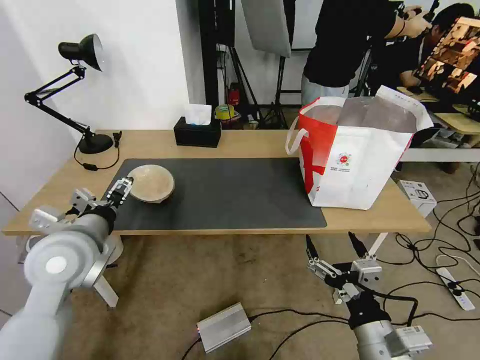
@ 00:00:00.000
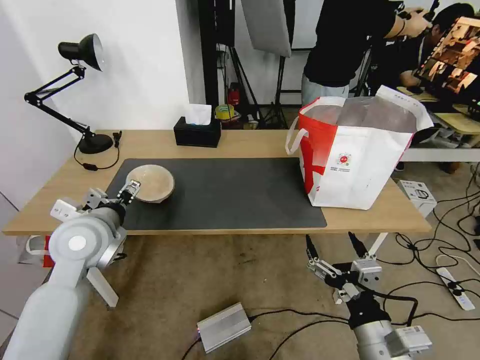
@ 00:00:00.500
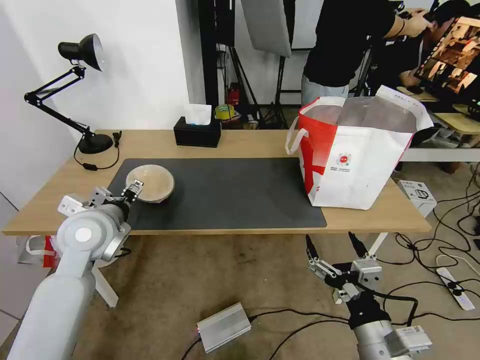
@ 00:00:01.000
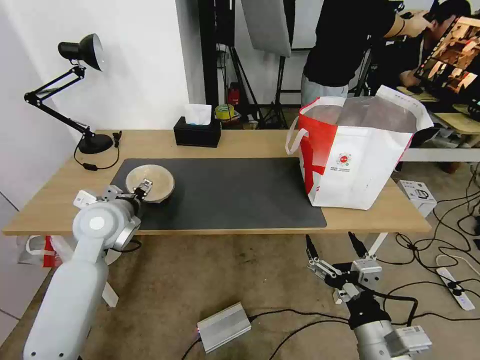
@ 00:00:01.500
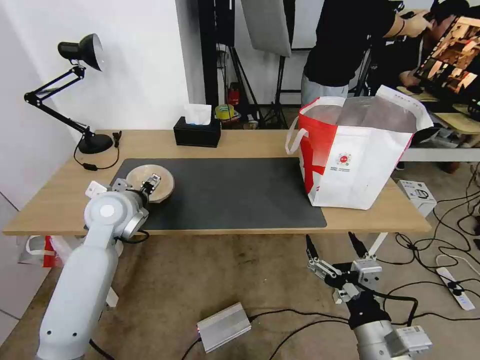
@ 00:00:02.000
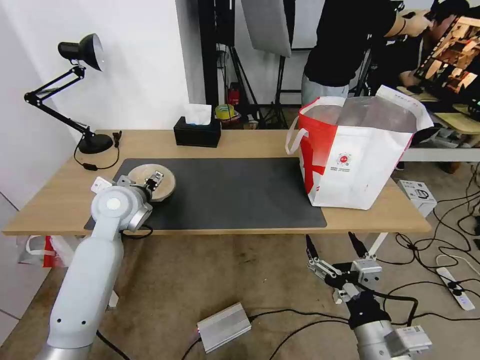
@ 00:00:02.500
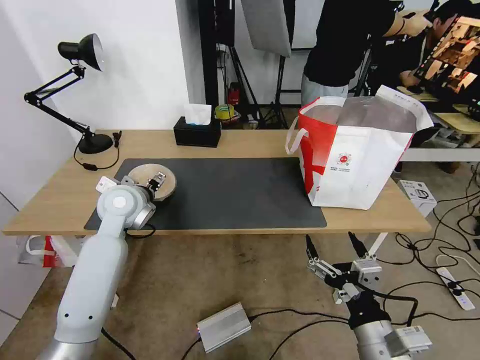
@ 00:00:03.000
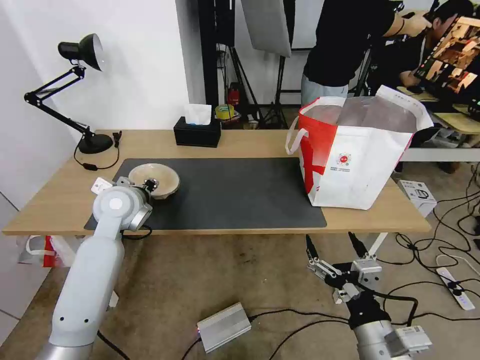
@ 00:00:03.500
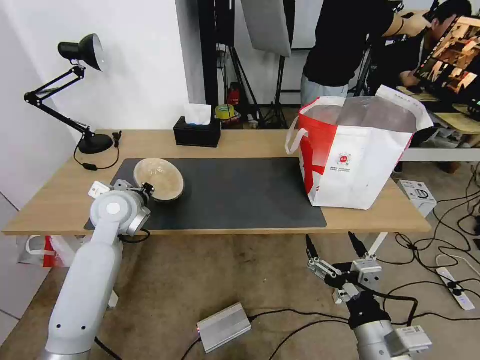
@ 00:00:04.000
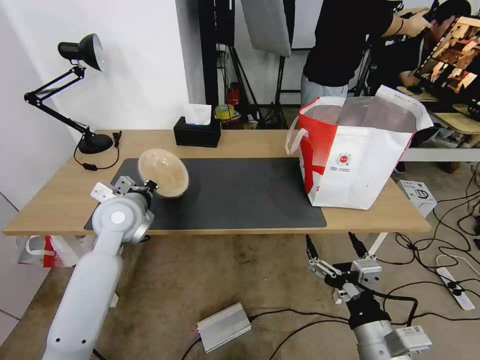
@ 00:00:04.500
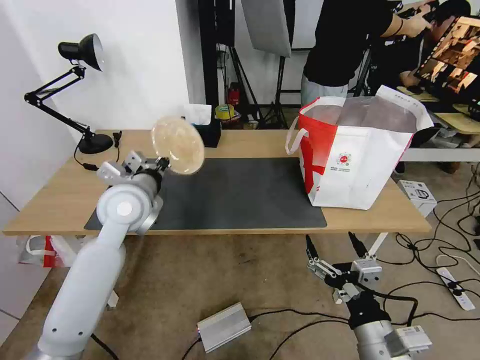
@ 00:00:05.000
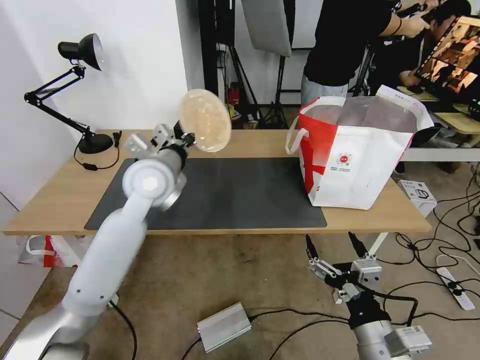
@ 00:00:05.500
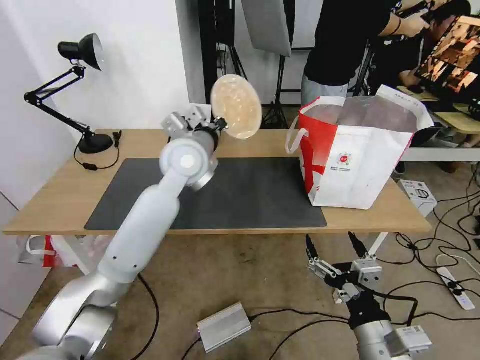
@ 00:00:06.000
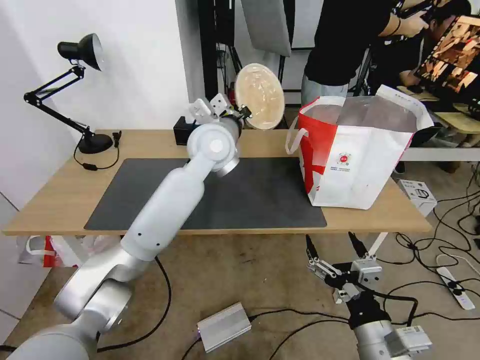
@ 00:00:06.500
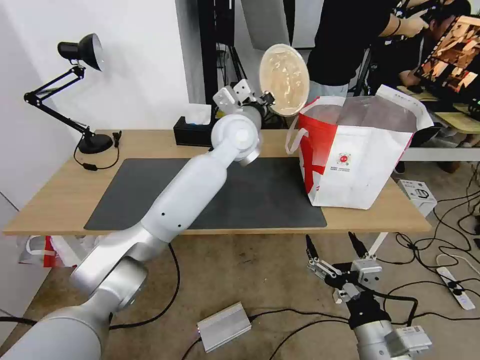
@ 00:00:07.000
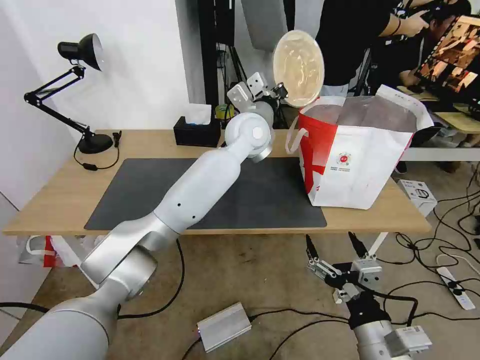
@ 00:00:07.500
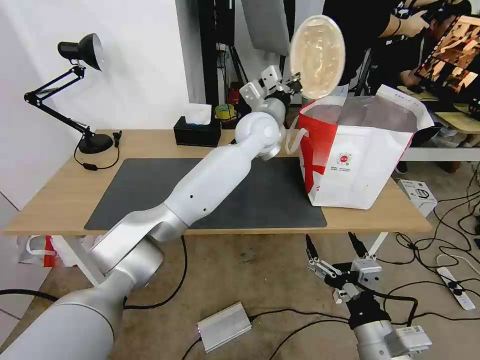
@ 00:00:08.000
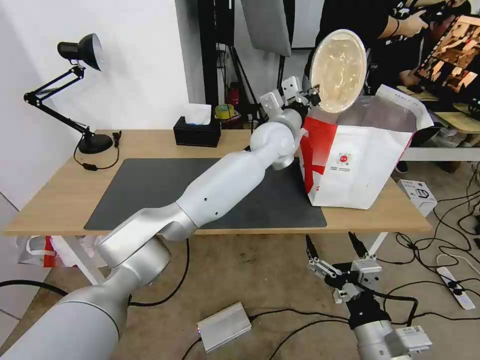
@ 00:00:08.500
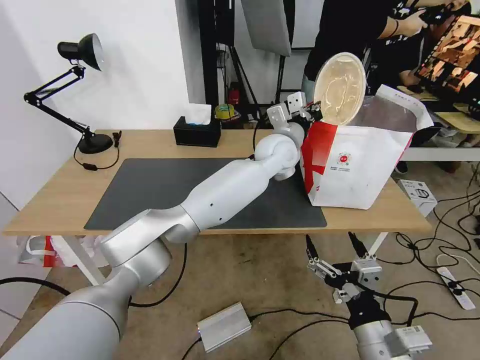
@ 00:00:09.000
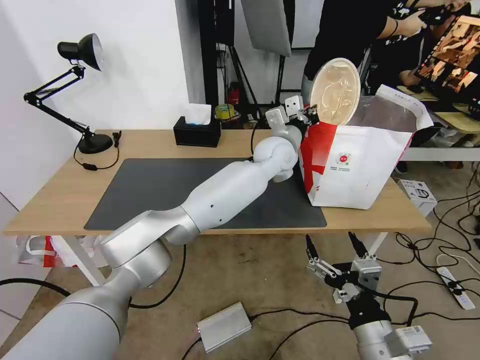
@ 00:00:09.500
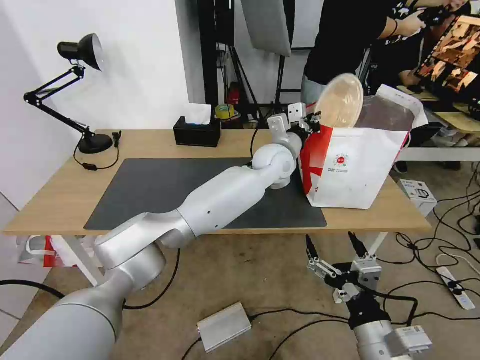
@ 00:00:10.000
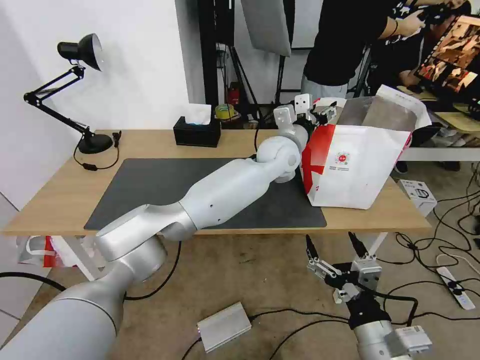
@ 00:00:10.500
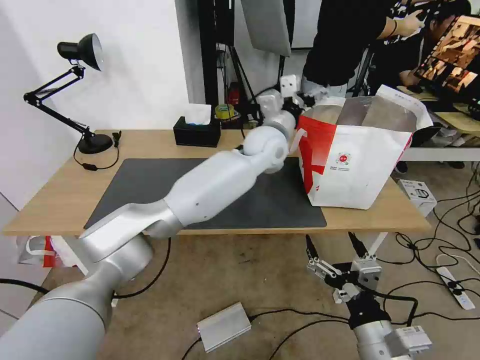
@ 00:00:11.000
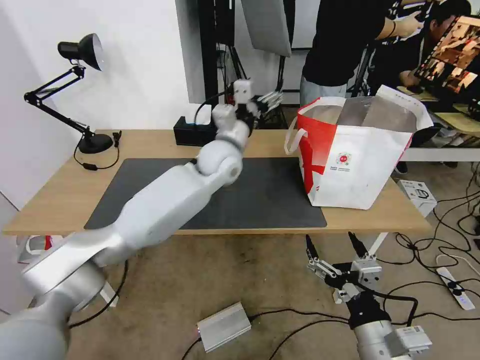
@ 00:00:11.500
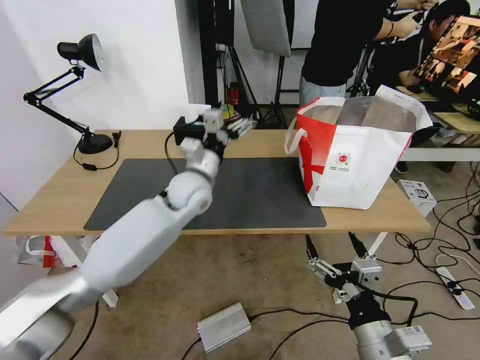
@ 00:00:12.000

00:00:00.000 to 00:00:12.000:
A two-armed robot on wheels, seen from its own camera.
Task of the whole recording: Pick up the trash from the table and place it into the takeout bag.
00:00:00.000 to 00:00:02.000: The left gripper travels forward by approximately 10 cm.
00:00:02.000 to 00:00:04.000: The left gripper closes up.
00:00:04.000 to 00:00:06.000: The left gripper moves to the right and upward, roughly 20 cm.
00:00:06.000 to 00:00:08.000: The left gripper is displaced to the right and forward by roughly 15 cm.
00:00:08.000 to 00:00:10.000: The left gripper heads downward, covering some 5 cm.
00:00:10.000 to 00:00:12.000: The left gripper goes about 20 cm to the left, and opens its fingers.

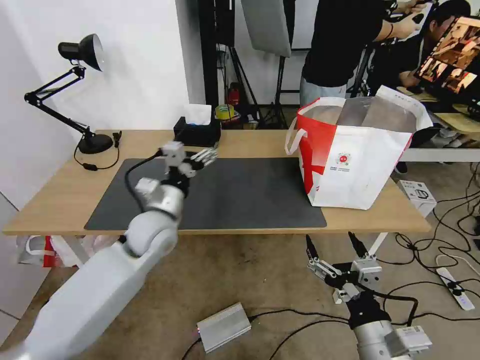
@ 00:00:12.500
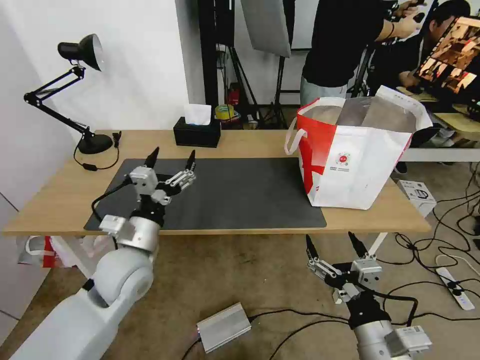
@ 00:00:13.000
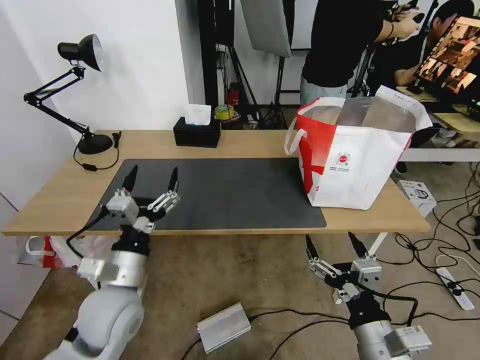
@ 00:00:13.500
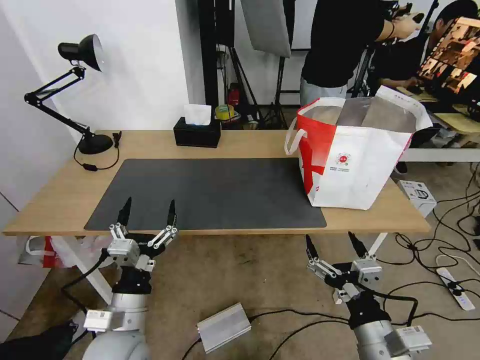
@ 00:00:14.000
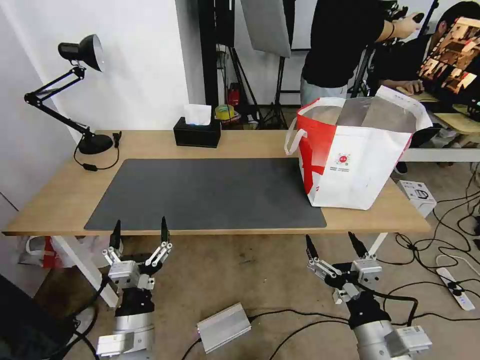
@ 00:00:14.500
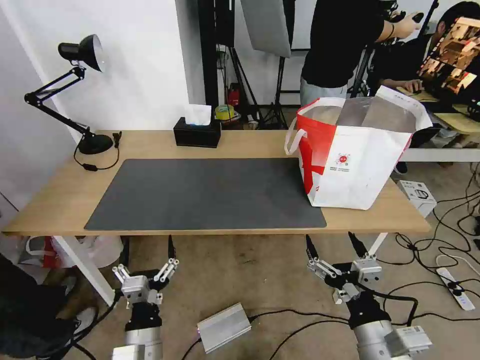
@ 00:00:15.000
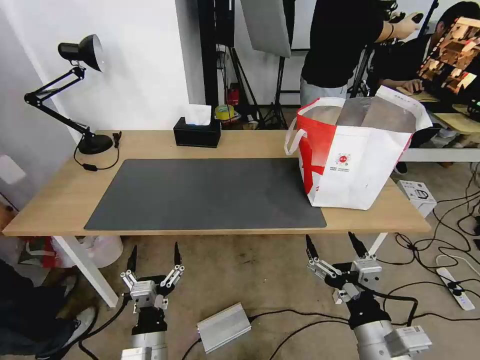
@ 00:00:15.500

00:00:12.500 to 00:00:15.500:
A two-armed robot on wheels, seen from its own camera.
Task of the whole recording: Pick up the trash from the table and place it into the takeout bag.
00:00:12.500 to 00:00:14.000: The left gripper heads backward, covering about 20 cm.
00:00:14.000 to 00:00:15.500: The left gripper shifts roughly 10 cm downward.

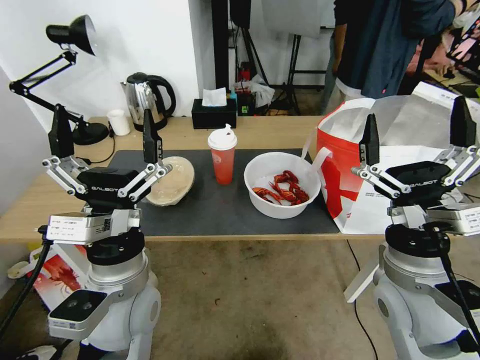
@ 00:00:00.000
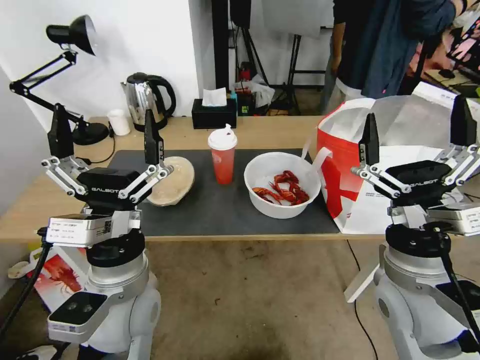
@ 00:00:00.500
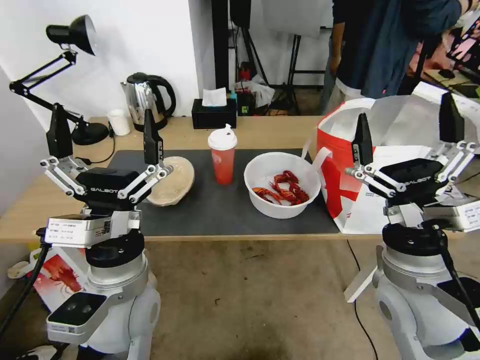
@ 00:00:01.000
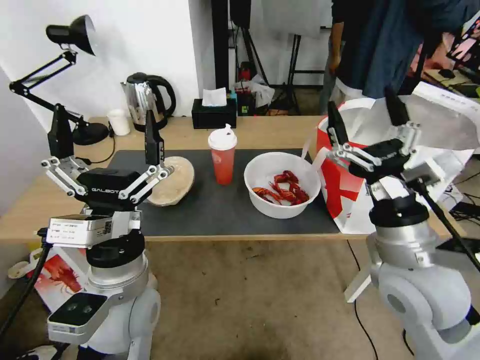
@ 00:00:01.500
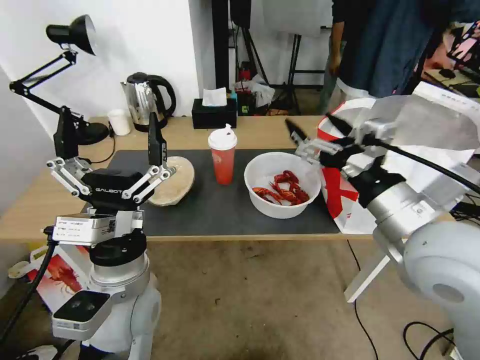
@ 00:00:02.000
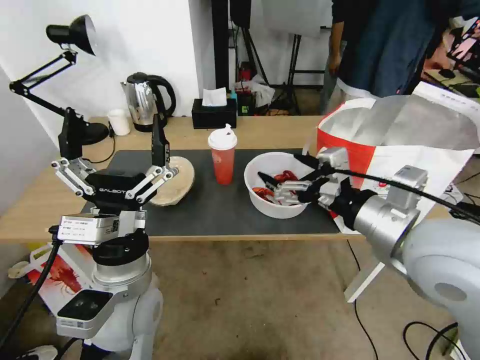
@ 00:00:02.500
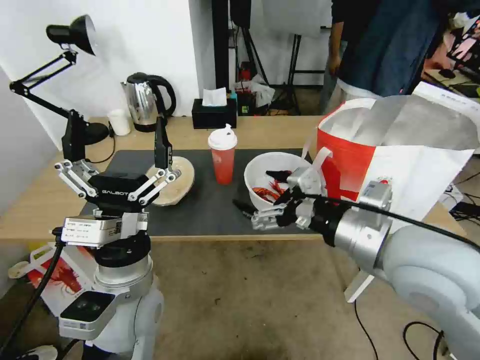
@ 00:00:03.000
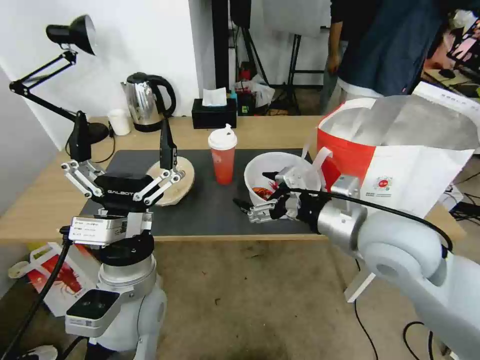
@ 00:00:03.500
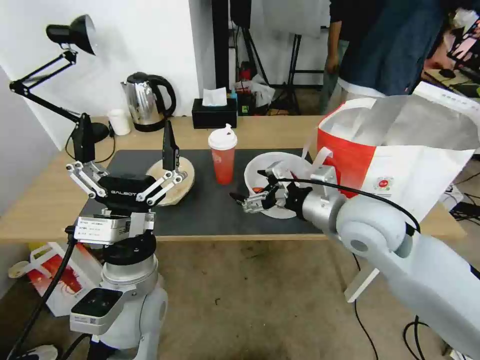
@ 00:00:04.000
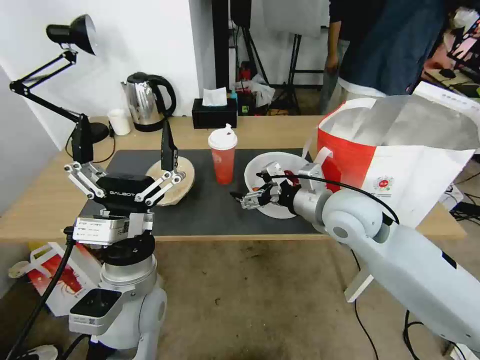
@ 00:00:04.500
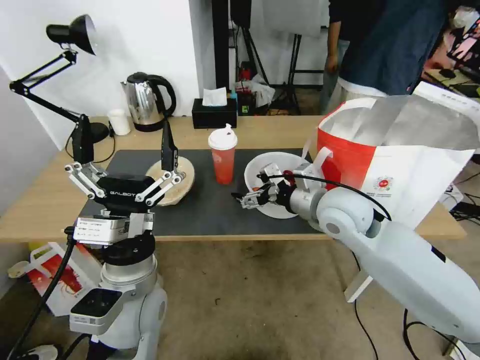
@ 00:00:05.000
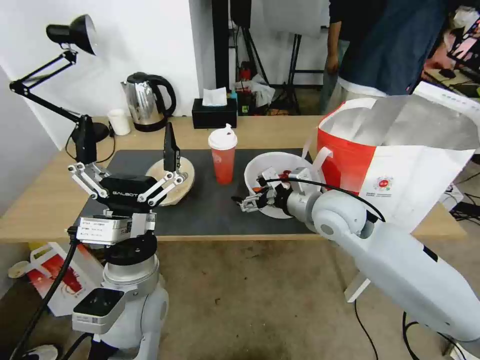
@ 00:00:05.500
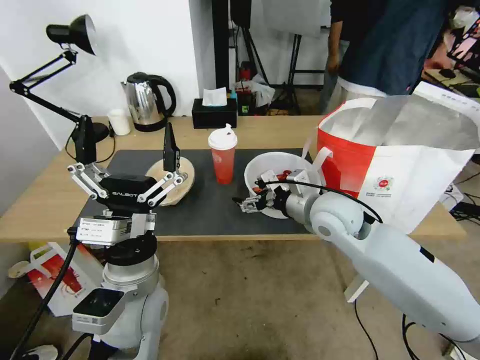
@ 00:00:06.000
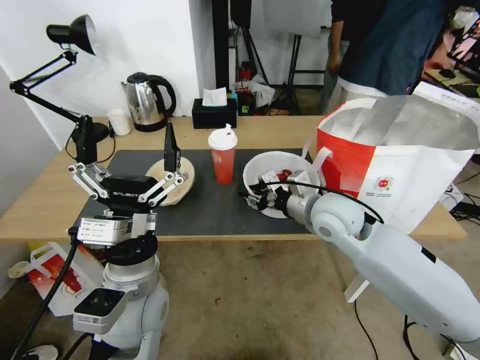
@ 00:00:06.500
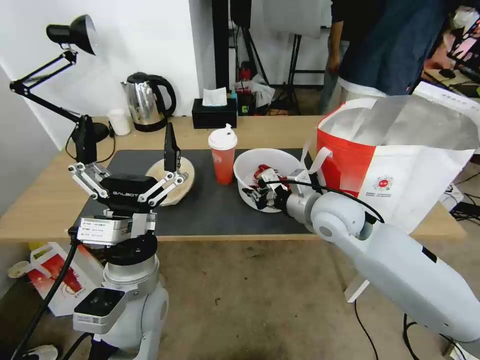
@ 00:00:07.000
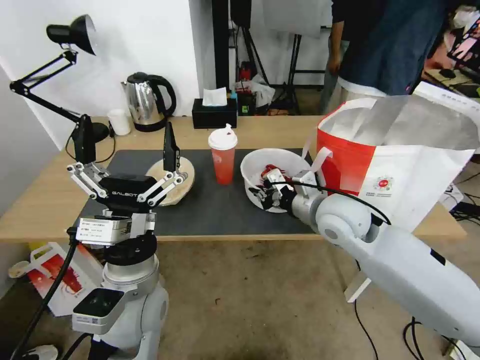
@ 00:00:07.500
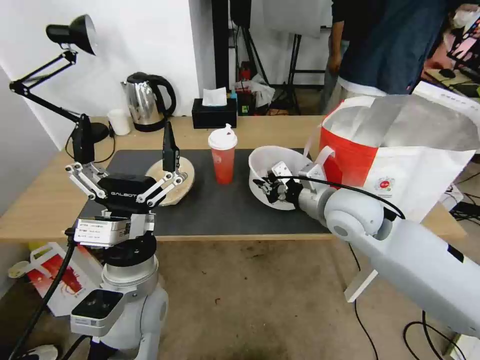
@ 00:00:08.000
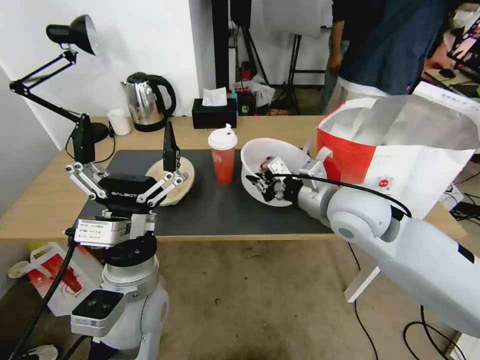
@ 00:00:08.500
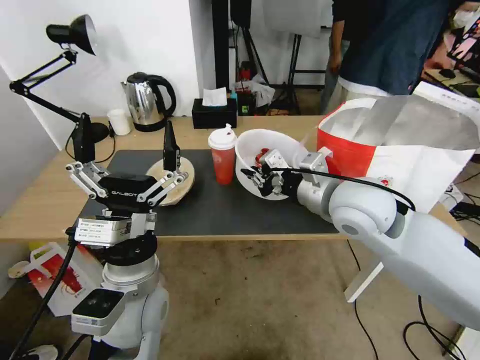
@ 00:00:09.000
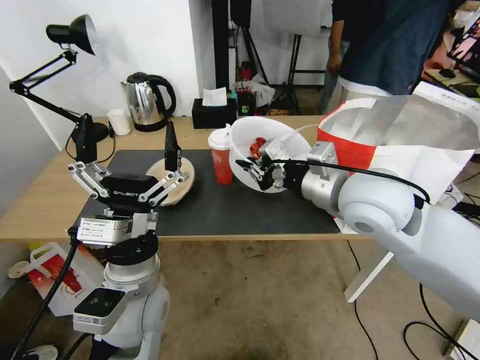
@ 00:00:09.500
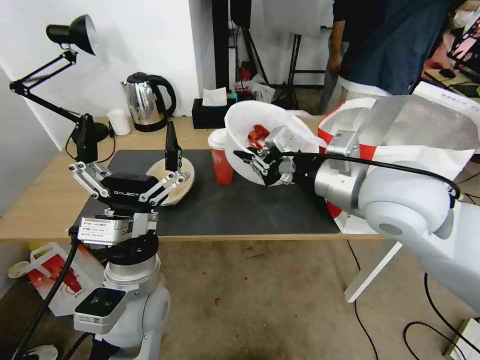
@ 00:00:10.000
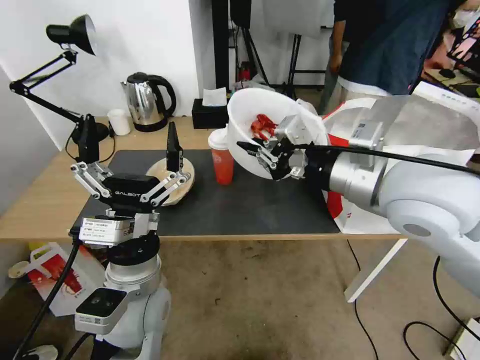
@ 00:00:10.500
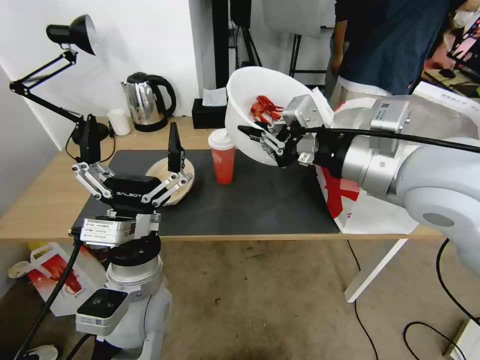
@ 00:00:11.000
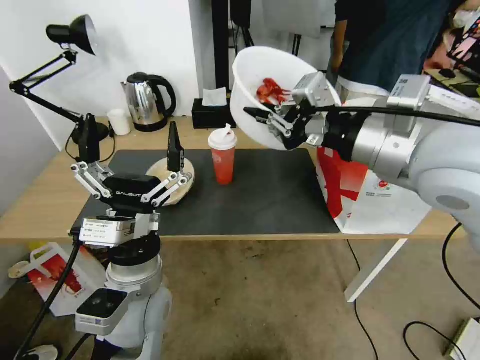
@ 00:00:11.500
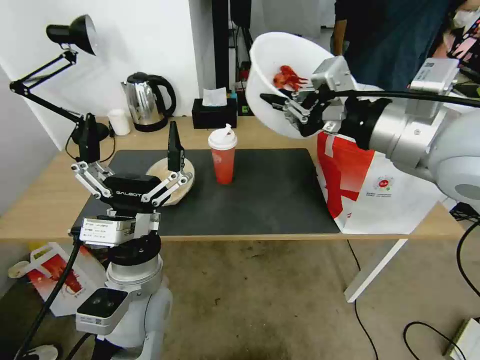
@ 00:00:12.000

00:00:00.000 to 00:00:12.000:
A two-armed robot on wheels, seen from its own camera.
Task of the whole recording: Pick up the trash from the table and place it into the takeout bag.
00:00:02.000 to 00:00:04.000: The right gripper travels forward and downward by about 10 cm.
00:00:04.000 to 00:00:06.000: The right gripper goes about 10 cm downward and forward.
00:00:06.000 to 00:00:08.000: The right gripper closes.
00:00:08.000 to 00:00:10.000: The right gripper heads upward and backward, covering some 15 cm.
00:00:10.000 to 00:00:12.000: The right gripper is displaced upward by about 10 cm.
